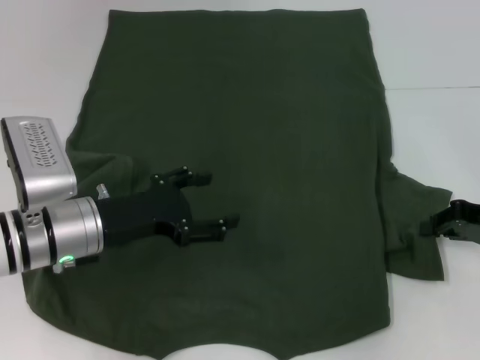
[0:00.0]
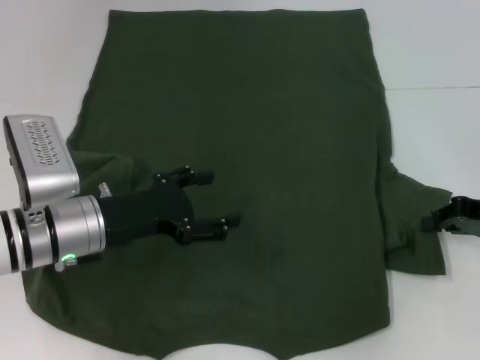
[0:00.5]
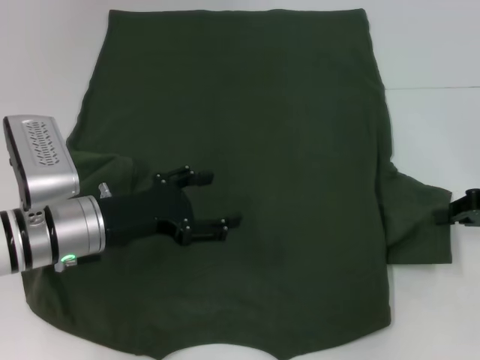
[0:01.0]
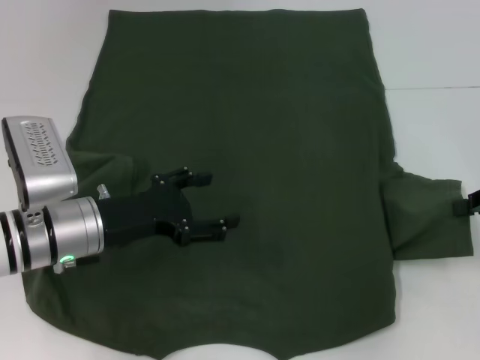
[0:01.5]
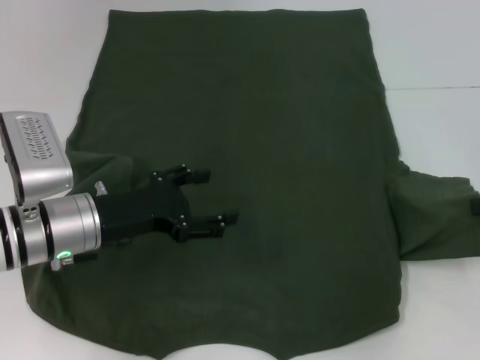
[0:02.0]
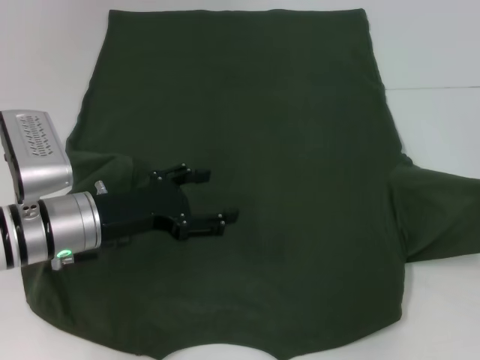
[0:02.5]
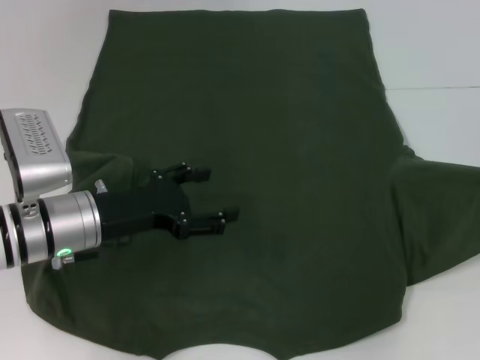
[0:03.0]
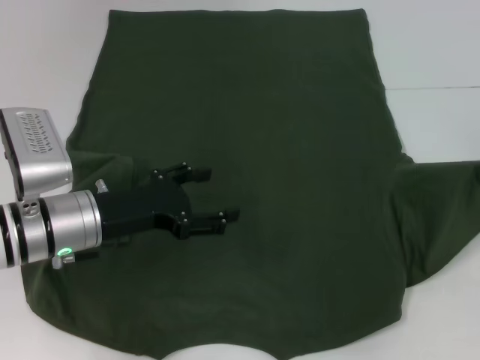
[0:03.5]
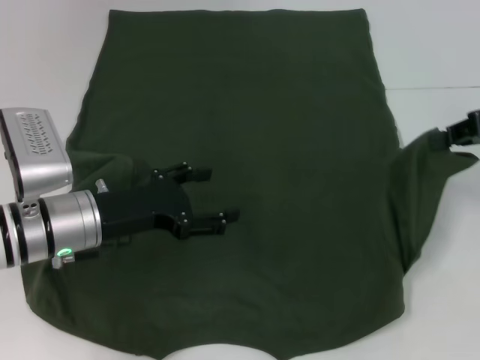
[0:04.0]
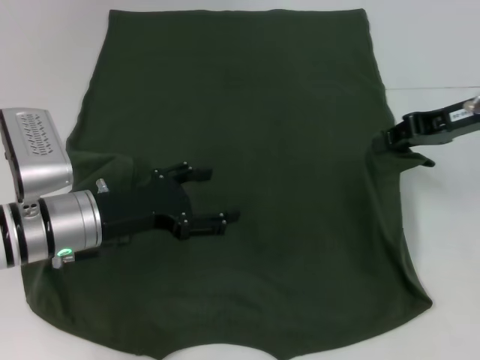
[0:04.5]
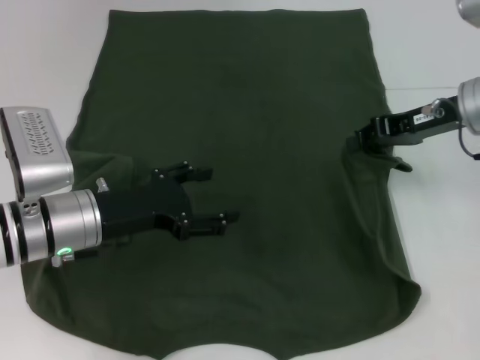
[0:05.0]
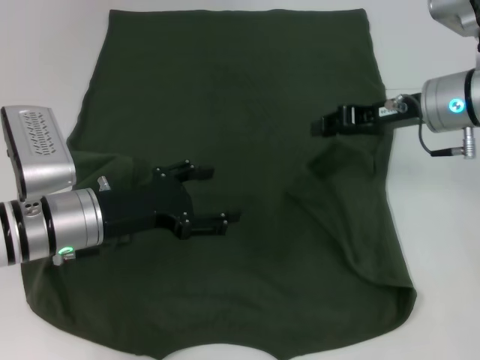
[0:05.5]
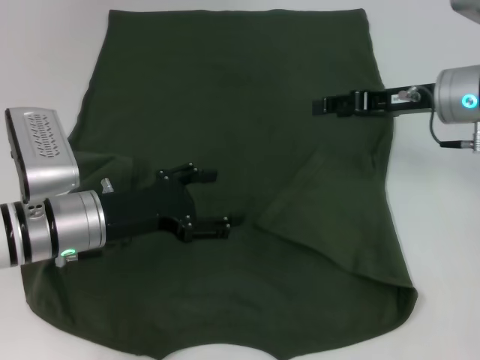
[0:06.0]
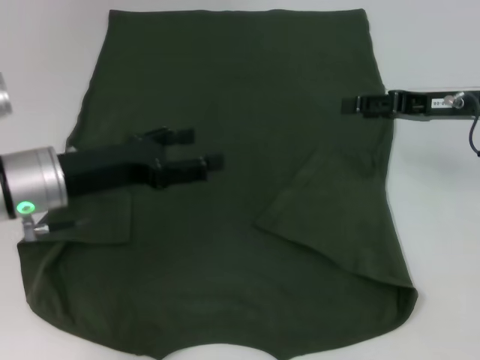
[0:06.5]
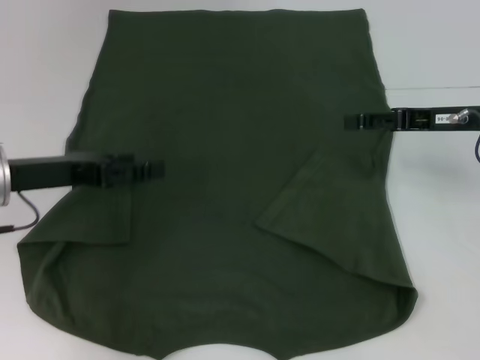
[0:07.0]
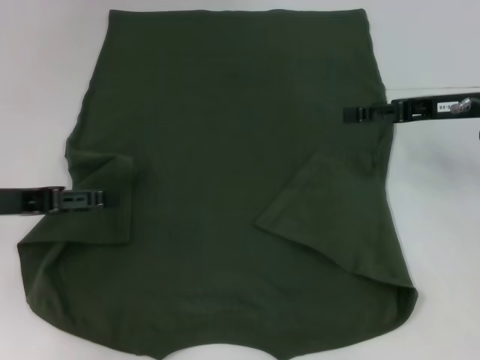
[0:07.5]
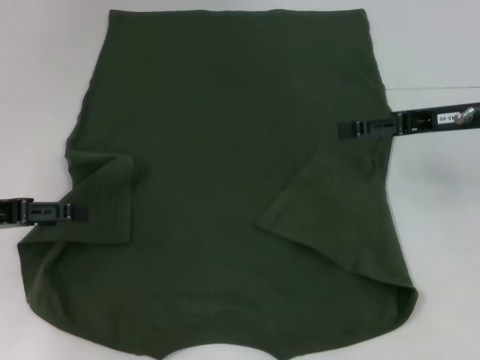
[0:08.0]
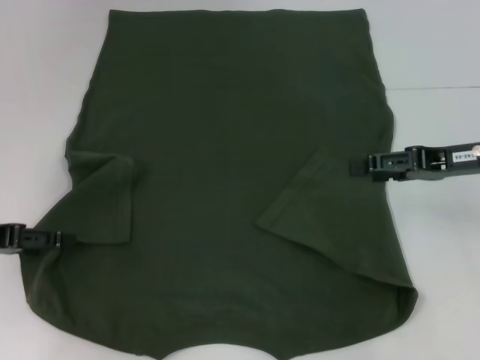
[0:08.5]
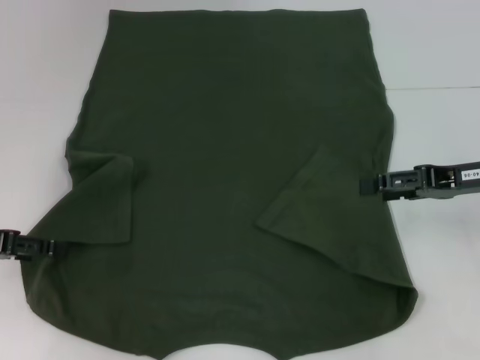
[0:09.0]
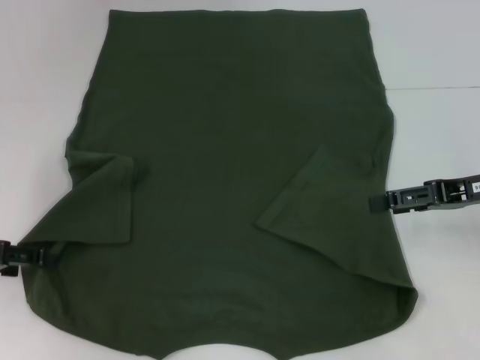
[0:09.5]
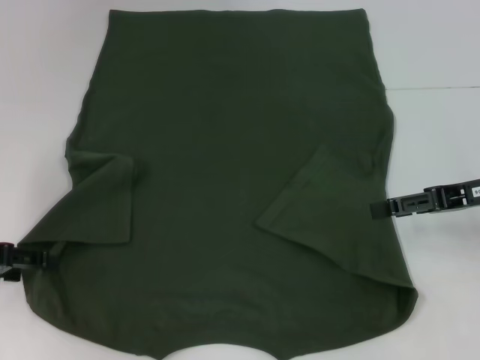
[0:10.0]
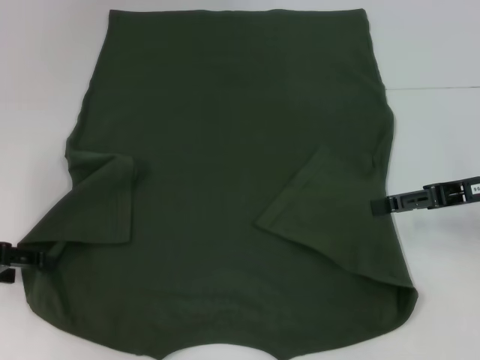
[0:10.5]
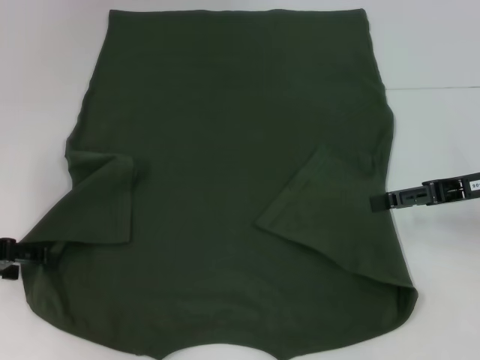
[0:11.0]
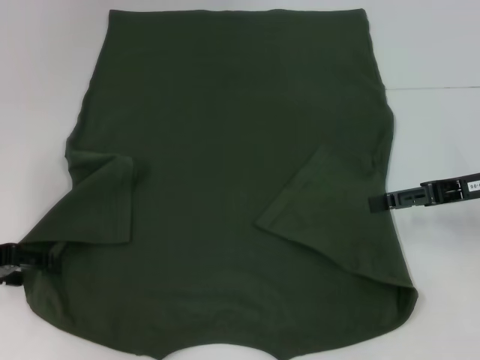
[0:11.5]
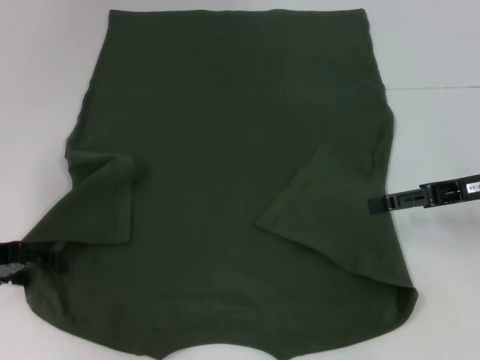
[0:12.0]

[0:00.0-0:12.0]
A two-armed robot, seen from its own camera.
Step, 0:00.0 to 0:05.5: Fold the bottom right sleeve with your right hand.
0:00.0 to 0:02.0: The right gripper is displaced upward by about 5 cm.
0:02.0 to 0:04.0: The right gripper moves upward, roughly 5 cm.
0:04.0 to 0:06.0: The right gripper shifts roughly 10 cm to the left, and opens.
0:06.0 to 0:08.0: The left gripper shifts some 15 cm to the left and upward. The right gripper moves some 5 cm, and opens up.
0:08.0 to 0:10.0: The right gripper shifts by roughly 5 cm.
0:10.0 to 0:12.0: The grippers move only a little.

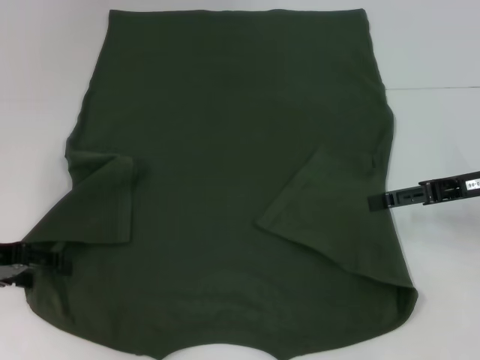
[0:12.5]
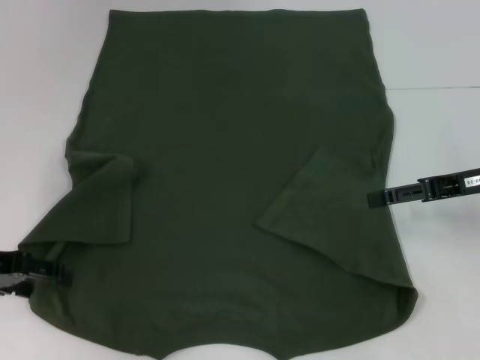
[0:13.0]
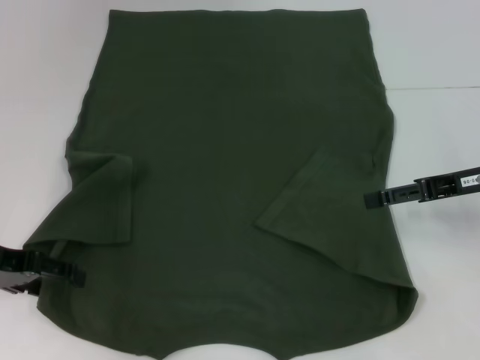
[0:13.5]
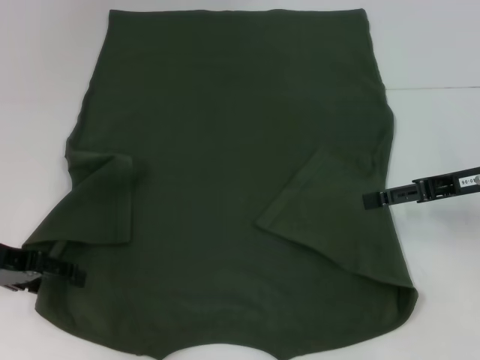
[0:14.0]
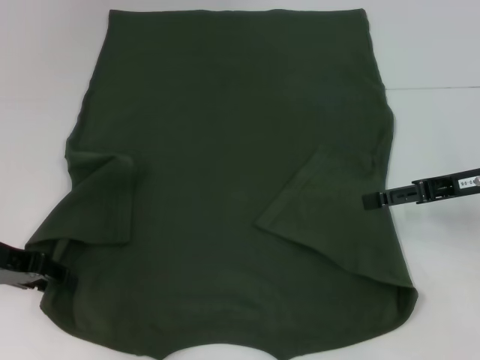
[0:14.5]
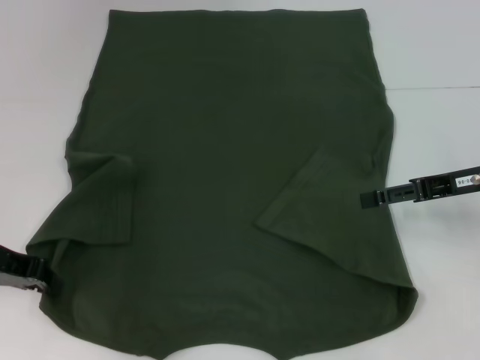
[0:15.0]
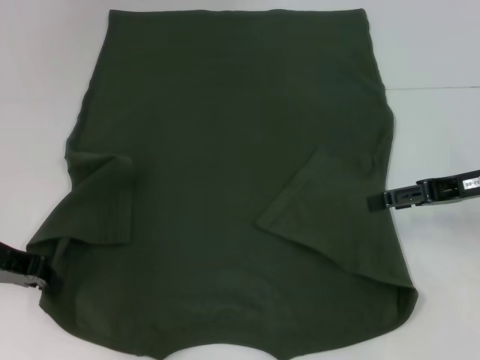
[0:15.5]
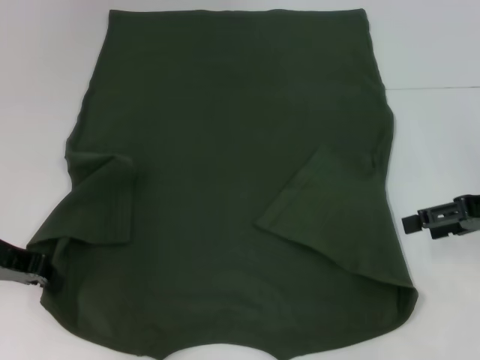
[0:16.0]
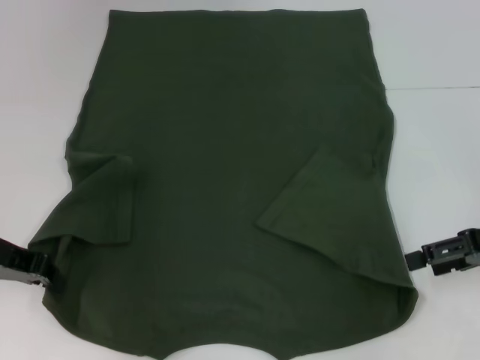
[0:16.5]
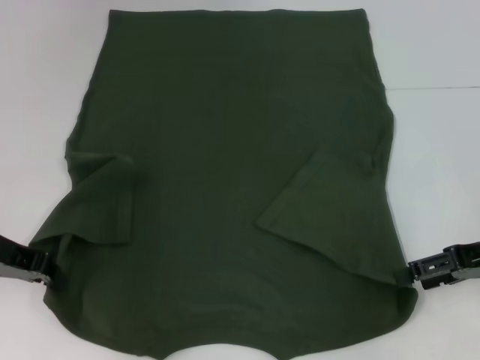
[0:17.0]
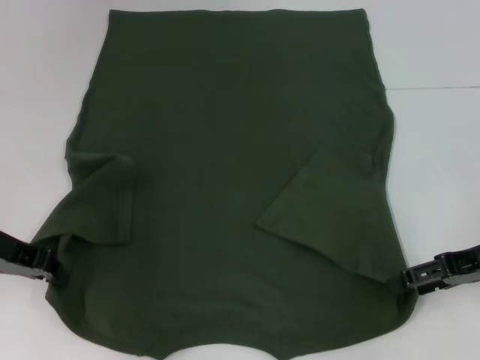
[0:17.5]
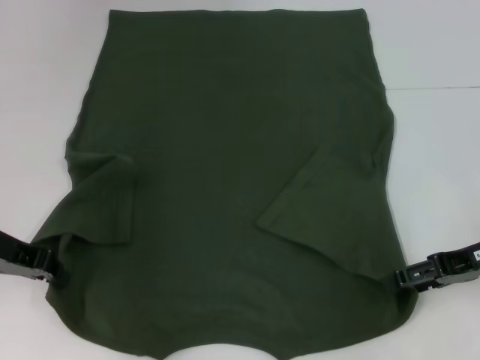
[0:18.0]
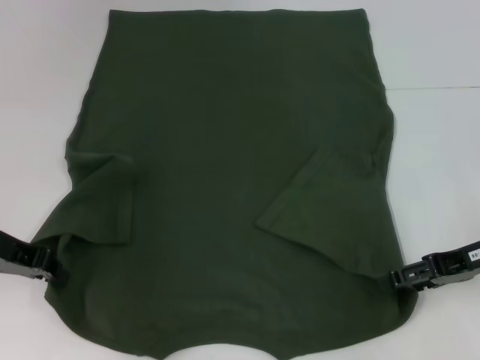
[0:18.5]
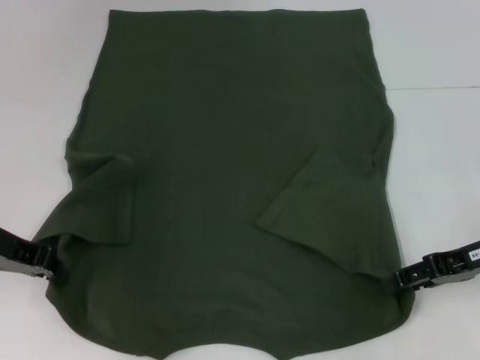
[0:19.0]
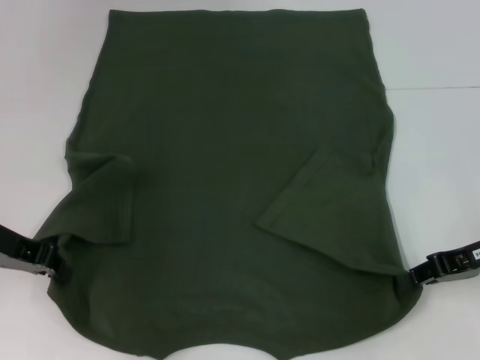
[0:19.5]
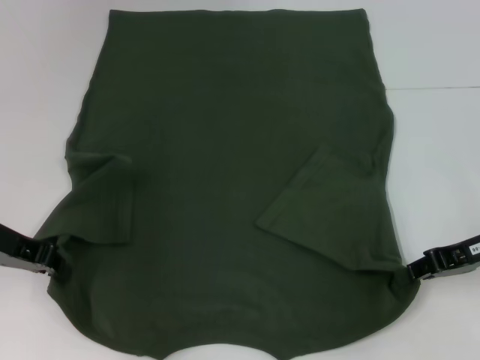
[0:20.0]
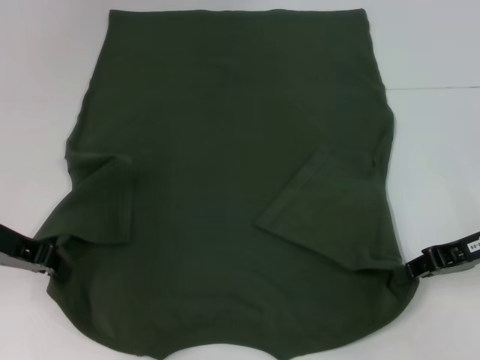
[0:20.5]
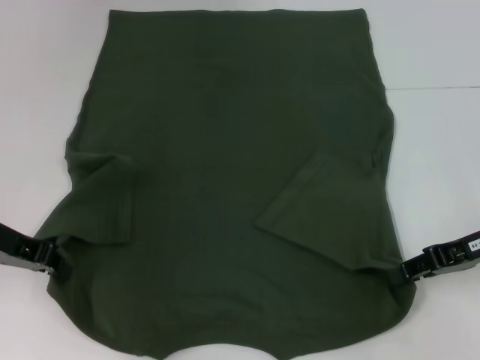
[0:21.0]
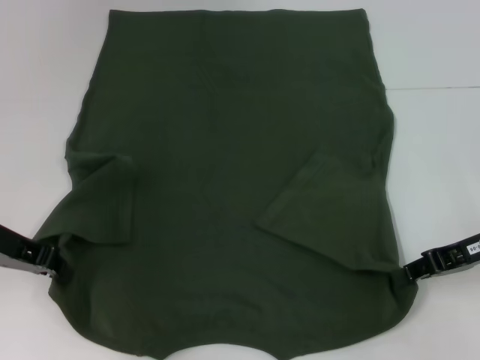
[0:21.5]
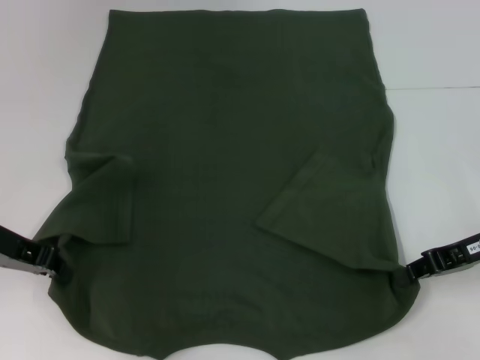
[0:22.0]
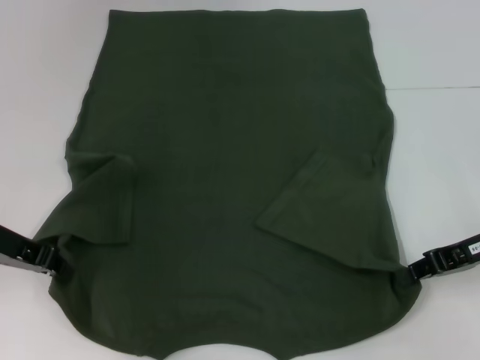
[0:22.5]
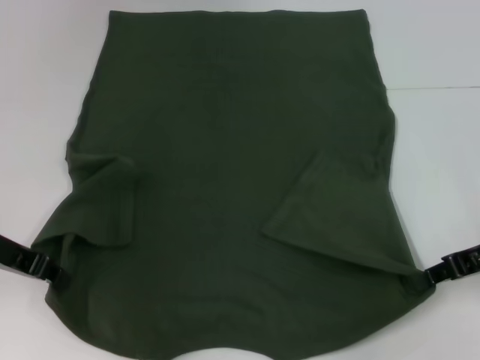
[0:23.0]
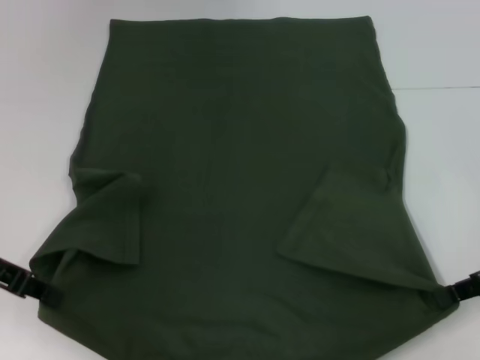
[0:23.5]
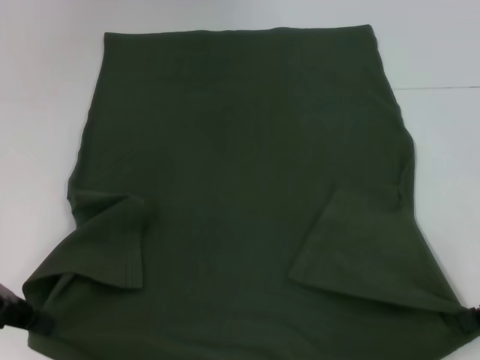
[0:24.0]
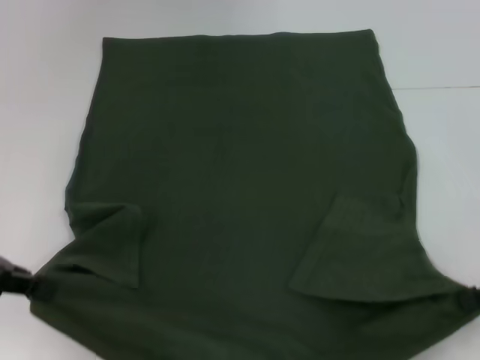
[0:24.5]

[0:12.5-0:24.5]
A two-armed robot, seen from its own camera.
Step, 0:12.5 to 0:15.0: Grab the bottom left corner with your left hand.
Step, 0:15.5 to 0:19.5: Grab the bottom right corner with your right hand.
0:12.5 to 0:14.5: The grippers move only a little.
0:14.5 to 0:16.5: The right gripper ends up some 5 cm from where it was. Meanwhile the left gripper closes.
0:16.5 to 0:18.5: The grippers move only a little.
0:18.5 to 0:20.5: The right gripper closes its fingers.
0:20.5 to 0:22.5: Both grippers stay put.
0:22.5 to 0:24.5: The right gripper shifts approximately 10 cm to the right and backward. The left gripper ends up roughly 5 cm from where it was.

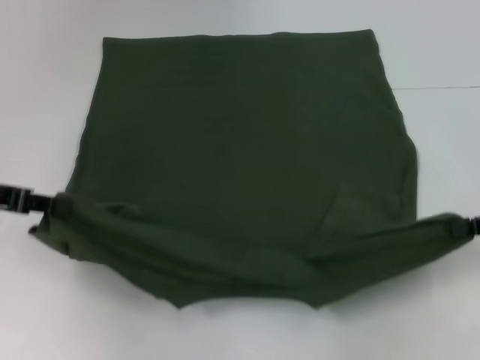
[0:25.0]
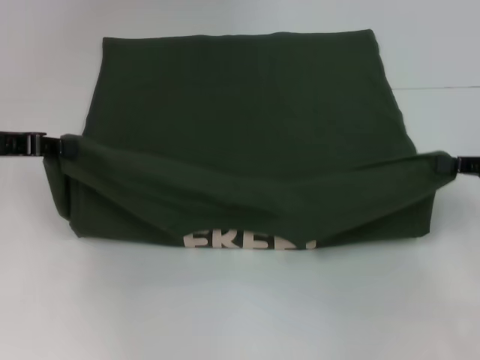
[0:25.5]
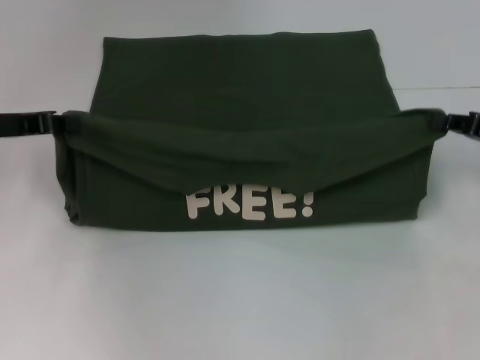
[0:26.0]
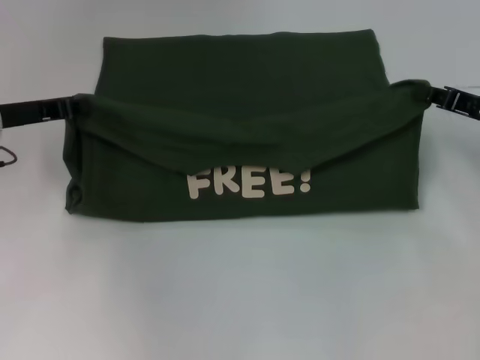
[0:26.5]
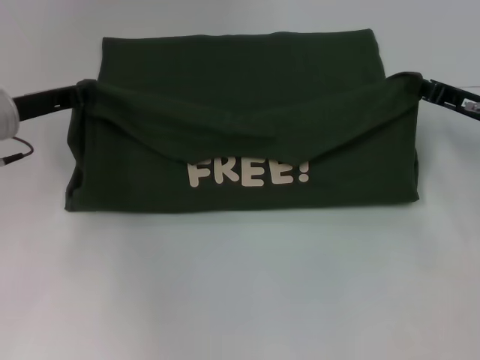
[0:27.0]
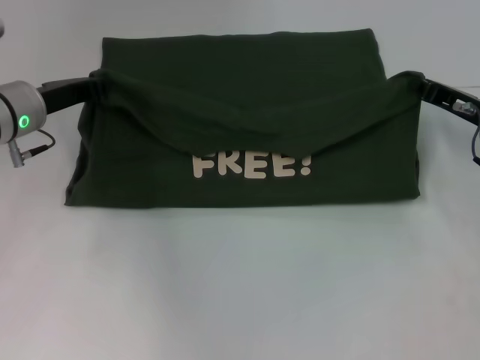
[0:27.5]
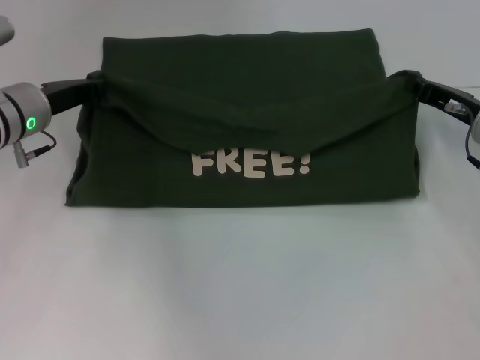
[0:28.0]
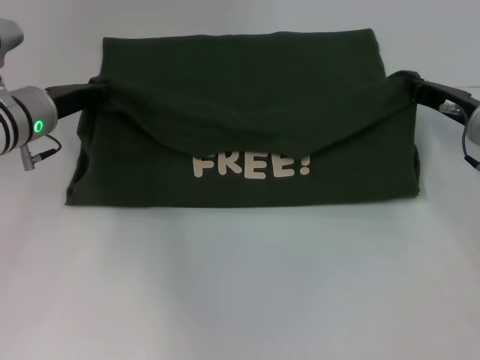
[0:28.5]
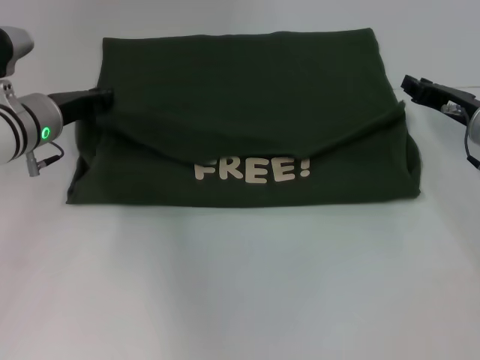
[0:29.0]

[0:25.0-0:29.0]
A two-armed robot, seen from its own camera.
Step, 0:25.0 to 0:29.0: Fold the clothes with your left hand.
Step, 0:25.0 to 0:29.0: Fold the clothes with your right hand.
0:25.0 to 0:27.0: The right gripper shifts approximately 10 cm forward and to the left, while the left gripper heads forward and to the right, covering about 10 cm.
0:27.0 to 0:29.0: The left gripper moves roughly 5 cm.
